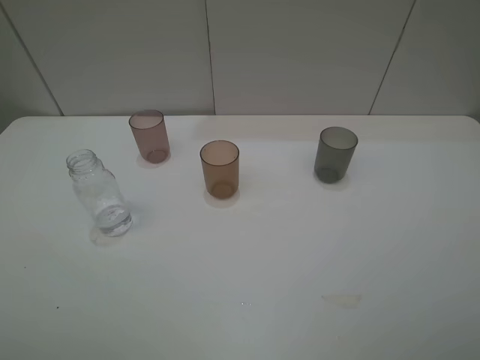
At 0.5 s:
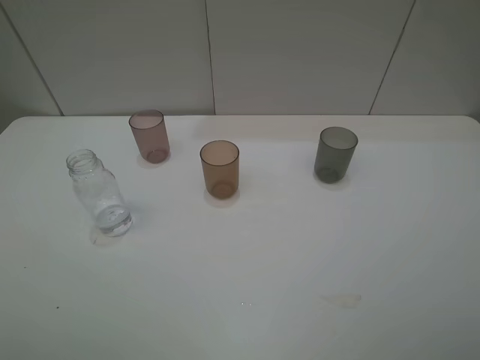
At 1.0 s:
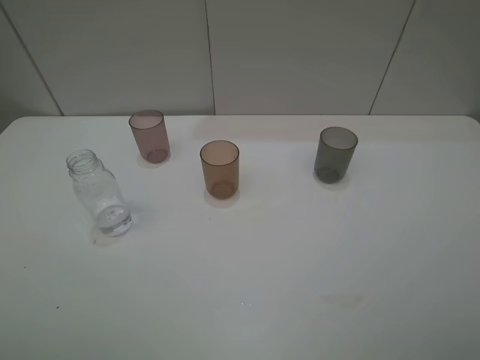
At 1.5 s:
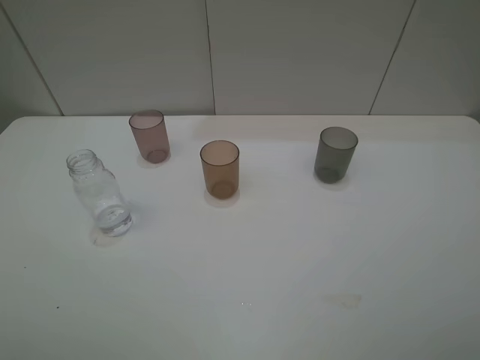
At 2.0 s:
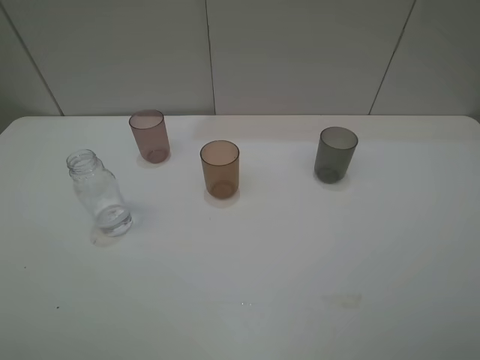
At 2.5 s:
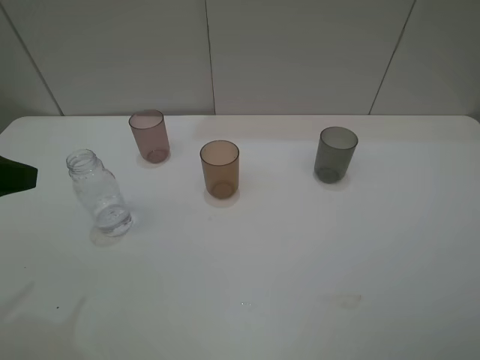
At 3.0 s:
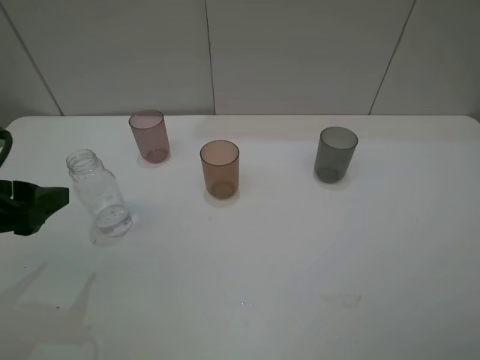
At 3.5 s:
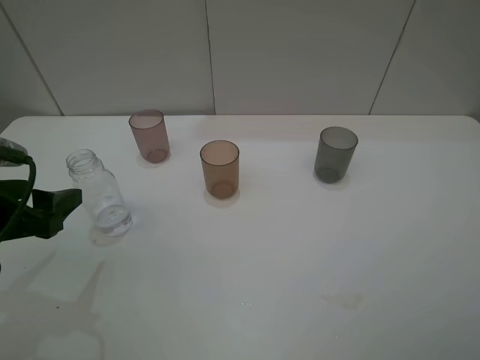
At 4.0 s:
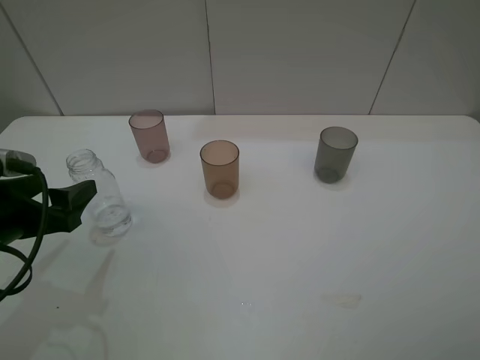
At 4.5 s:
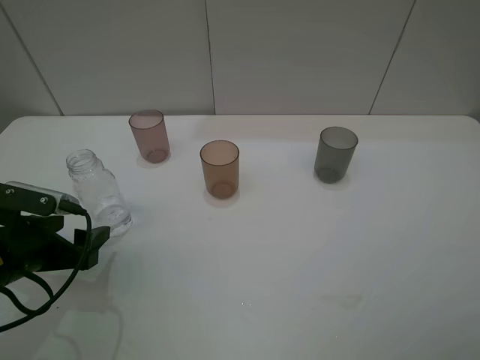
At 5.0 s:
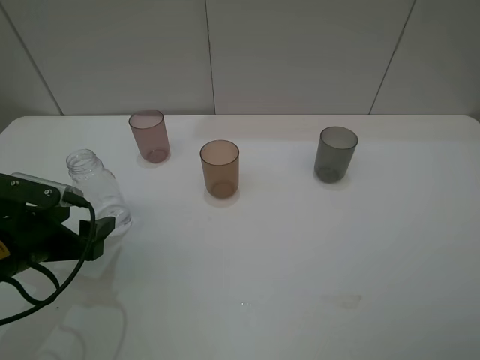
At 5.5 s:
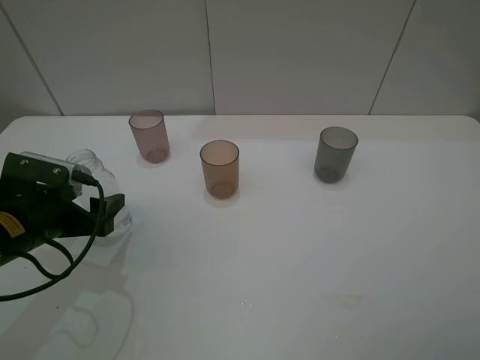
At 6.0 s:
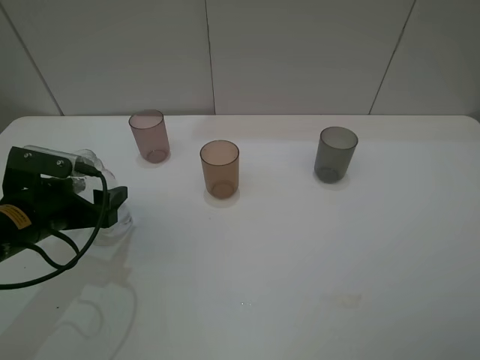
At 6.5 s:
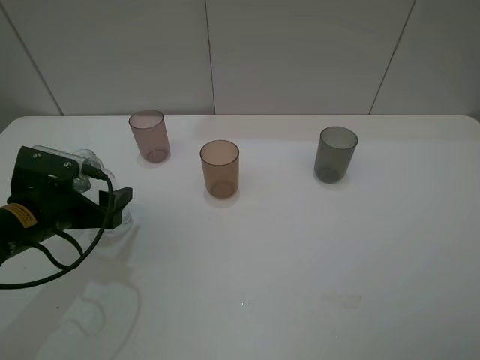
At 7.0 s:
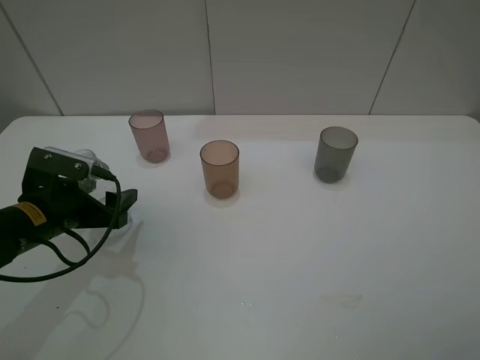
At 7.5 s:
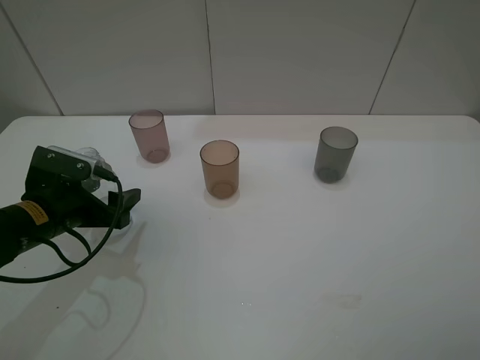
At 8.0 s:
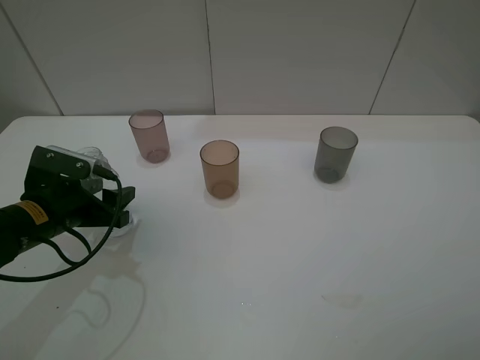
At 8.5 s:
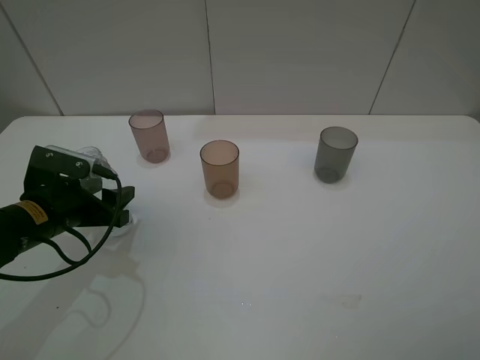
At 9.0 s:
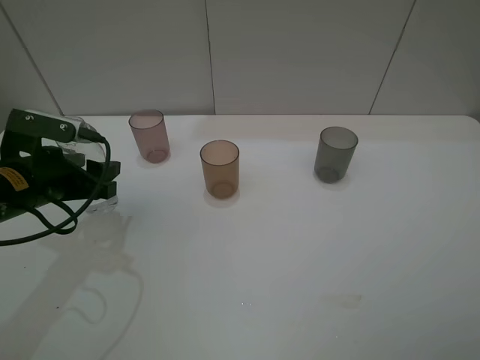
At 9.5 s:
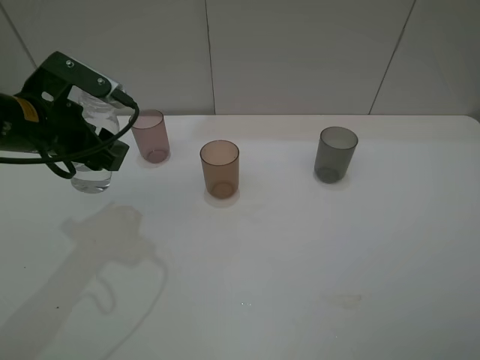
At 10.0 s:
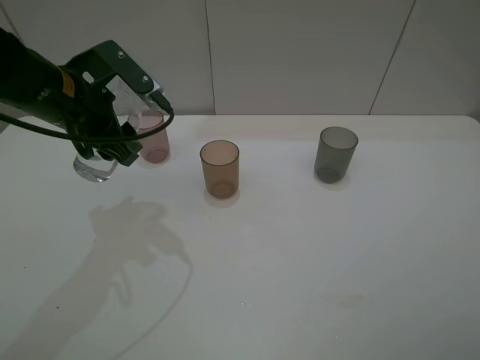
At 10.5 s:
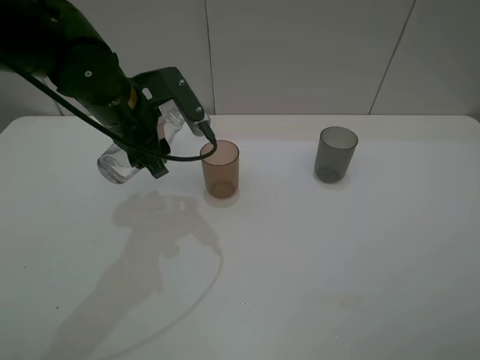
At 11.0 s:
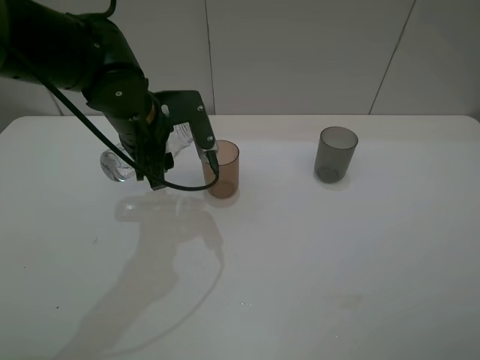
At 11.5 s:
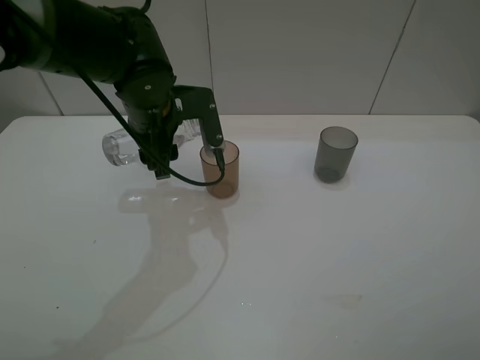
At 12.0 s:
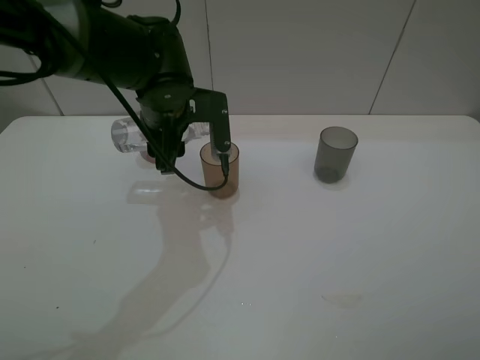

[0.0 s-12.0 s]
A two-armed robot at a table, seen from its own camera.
Task of the whole recording: pick up the bottle filled with water and pour water into the middle cup of the three cups.
Step, 0.0 to 7.0 s: Grasp the transparent bottle with the left gripper.
2.0 to 4.0 s: The left gripper is displaced downward and forward by about 20 cm.
4.0 to 6.0 s: The left gripper changes place by about 5 cm.
6.0 to 8.0 s: The left gripper closes its fingers.
8.0 to 10.0 s: The left gripper travels upward, forward and to the right by about 15 cm.
10.0 to 12.0 s: The left gripper moves to the right, approximately 10 cm.

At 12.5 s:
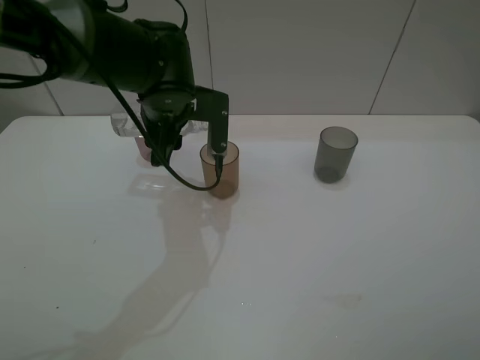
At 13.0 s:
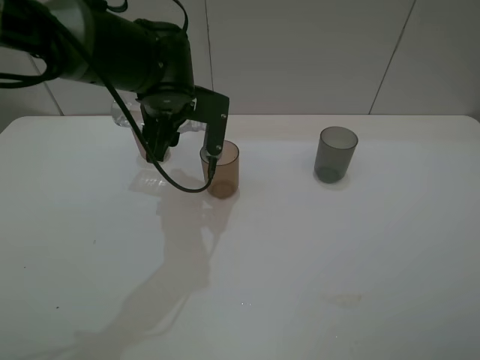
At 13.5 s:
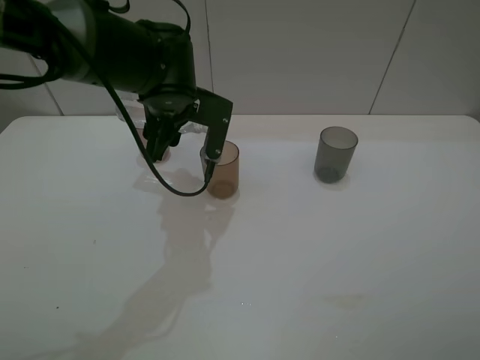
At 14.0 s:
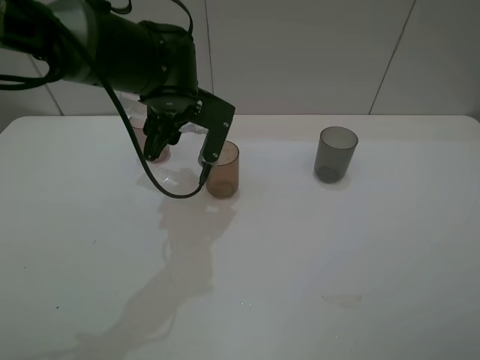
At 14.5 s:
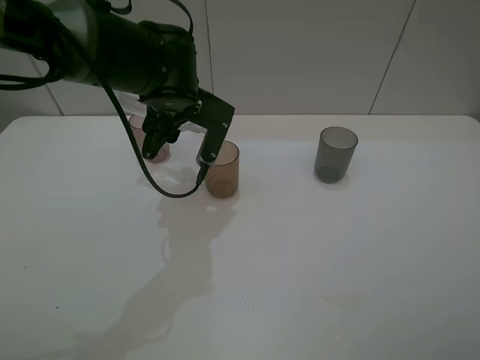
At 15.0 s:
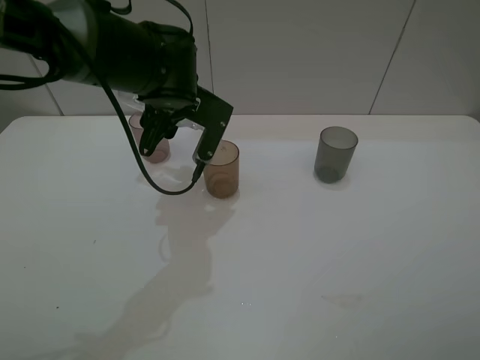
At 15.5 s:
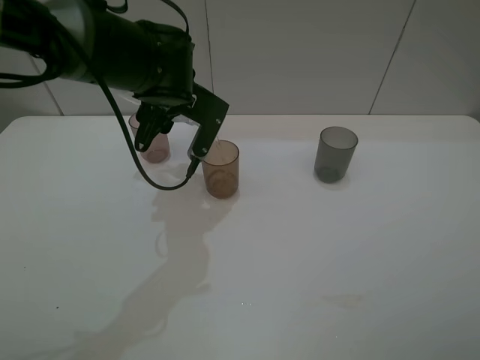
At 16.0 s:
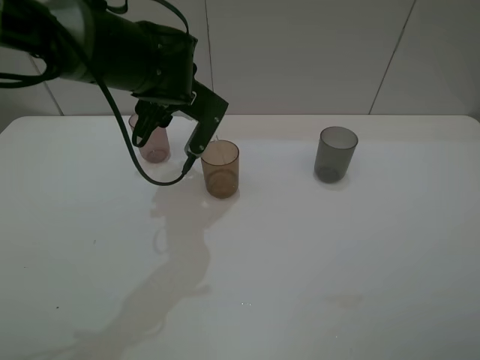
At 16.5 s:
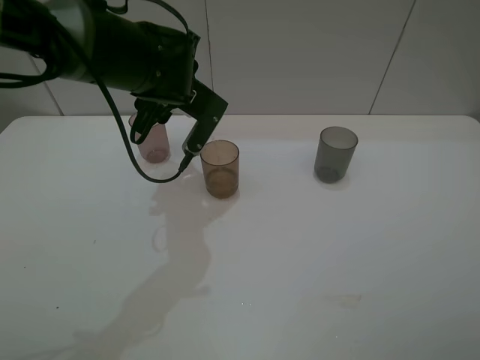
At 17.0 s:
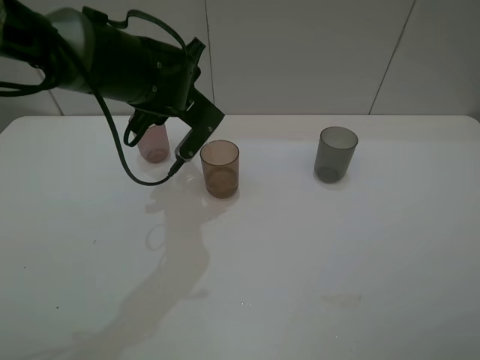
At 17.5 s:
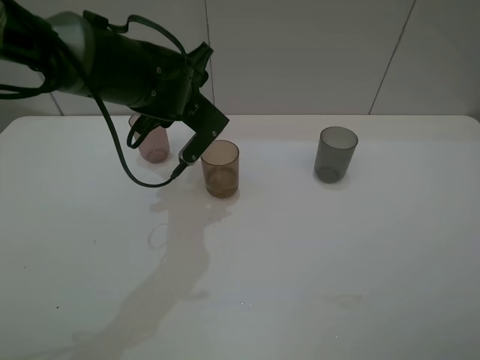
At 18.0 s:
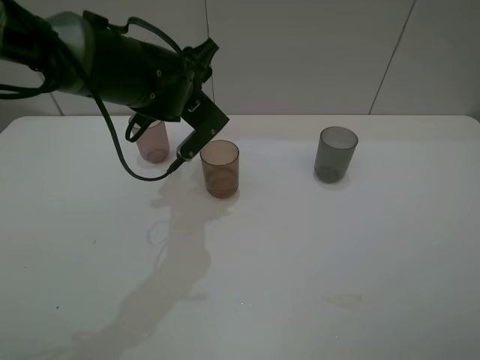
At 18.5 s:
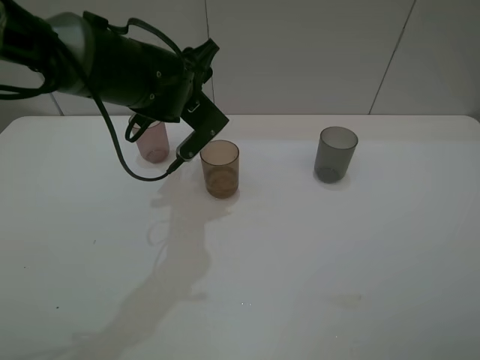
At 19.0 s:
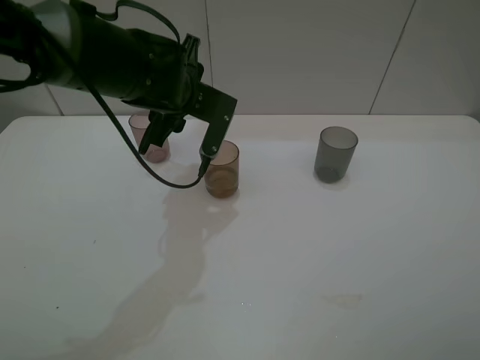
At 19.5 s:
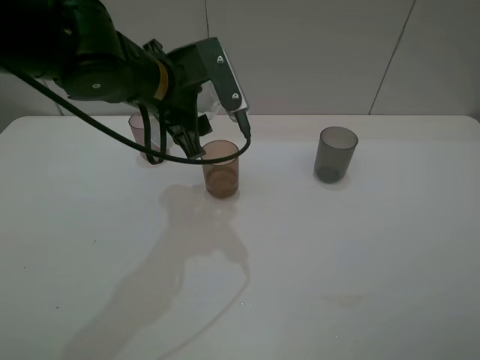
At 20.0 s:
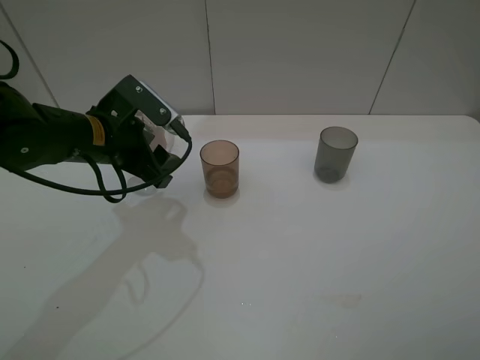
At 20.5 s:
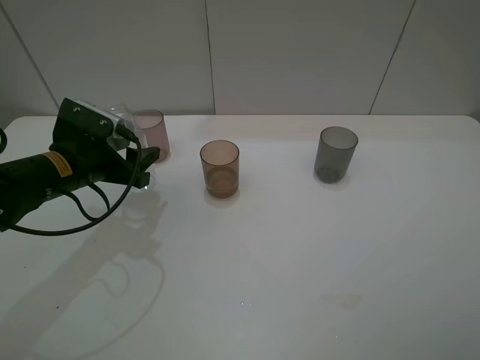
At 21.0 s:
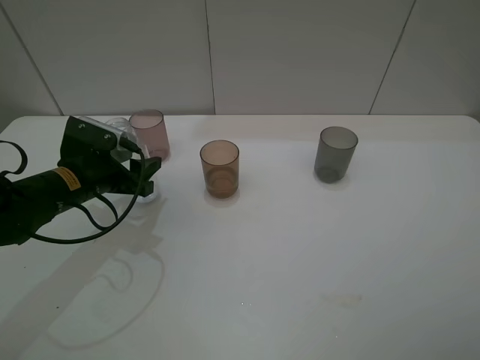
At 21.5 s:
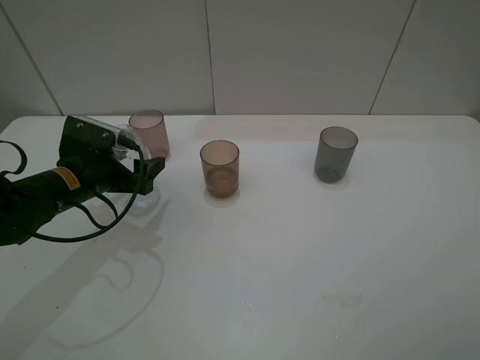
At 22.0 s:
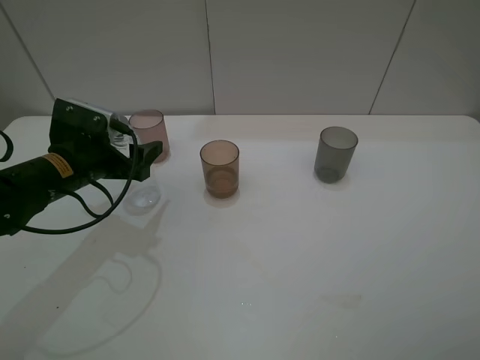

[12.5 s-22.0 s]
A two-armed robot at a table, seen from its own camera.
Task of the whole recording: pick up the bottle filled with water and pour water into the middle cup of the three cups.
Step, 12.5 to 14.5 s: Pour water from transparent bottle to brown cup with the left gripper.
12.5 to 14.5 s: The grippers make only small movements.
14.5 to 16.5 s: There are only small adjustments of the grippers.
16.5 to 18.0 s: The grippers make only small movements.
18.0 to 20.0 s: The left gripper heads to the left and backward, covering about 10 cm.
20.0 to 22.0 s: The left gripper moves to the left, roughly 5 cm, and opens its fingers.

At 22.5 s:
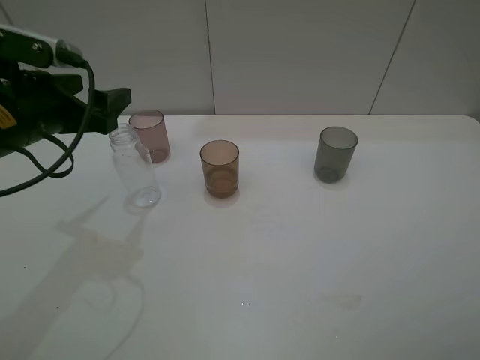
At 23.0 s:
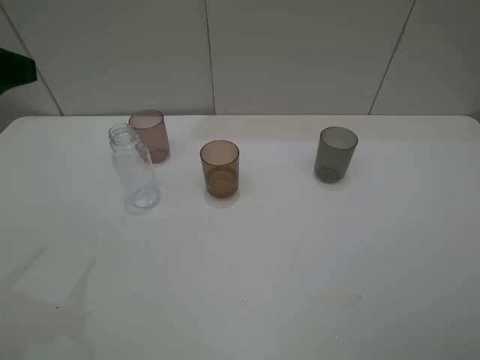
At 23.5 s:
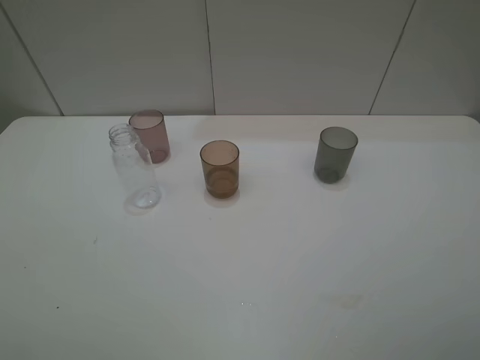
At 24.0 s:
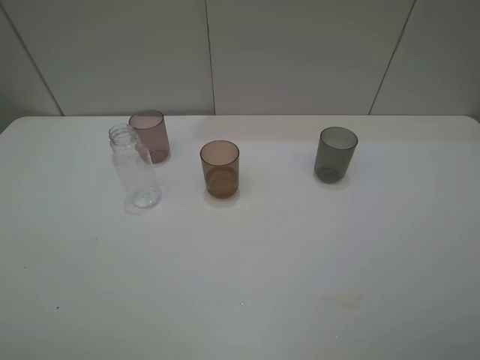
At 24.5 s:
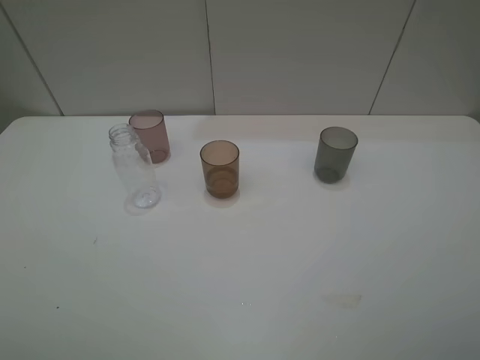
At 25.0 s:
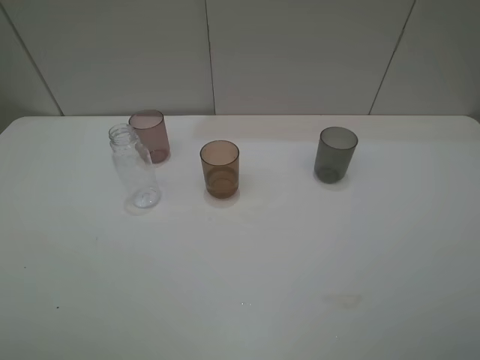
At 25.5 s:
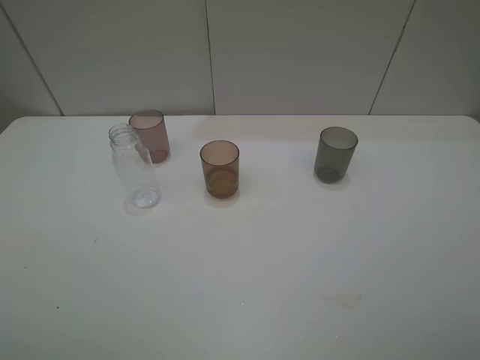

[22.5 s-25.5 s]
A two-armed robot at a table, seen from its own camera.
Task of the whole recording: pick up the bottle filled with water and pour water into the middle cup of the three cups.
22.5 to 24.0 s: The left gripper is displaced backward by approximately 30 cm.
